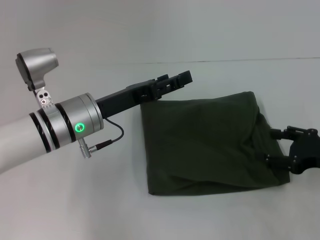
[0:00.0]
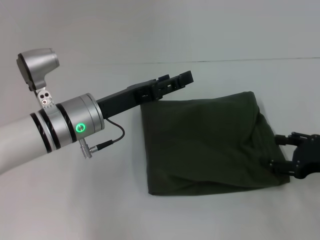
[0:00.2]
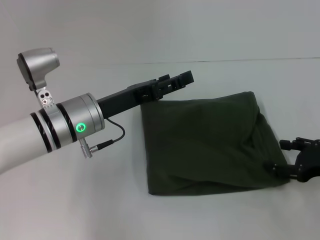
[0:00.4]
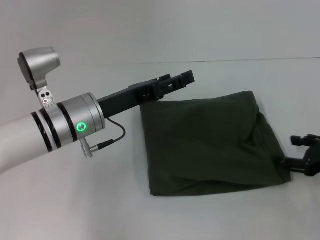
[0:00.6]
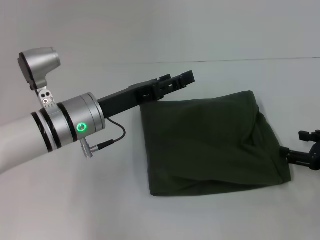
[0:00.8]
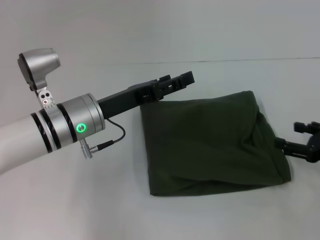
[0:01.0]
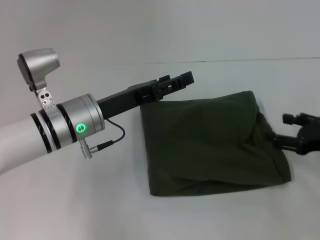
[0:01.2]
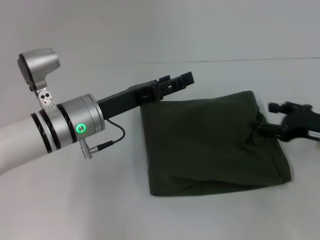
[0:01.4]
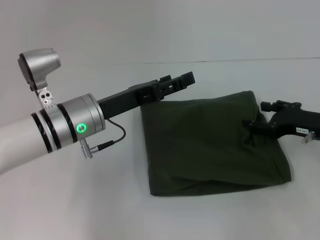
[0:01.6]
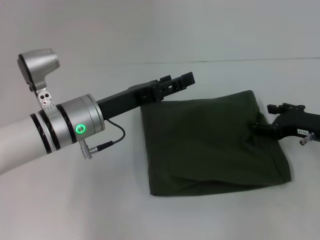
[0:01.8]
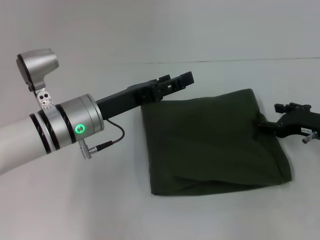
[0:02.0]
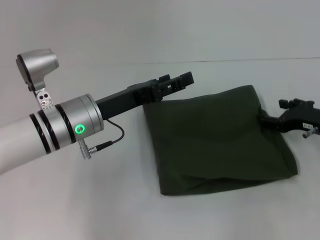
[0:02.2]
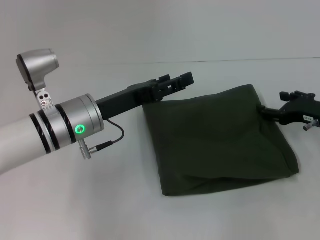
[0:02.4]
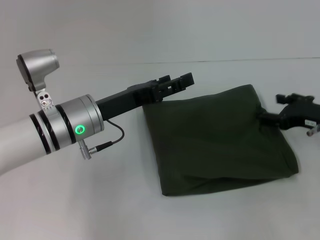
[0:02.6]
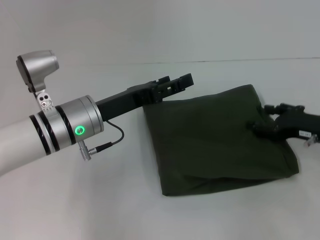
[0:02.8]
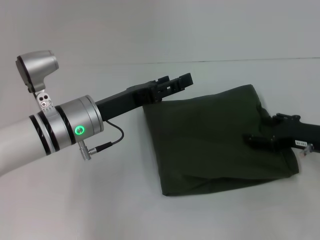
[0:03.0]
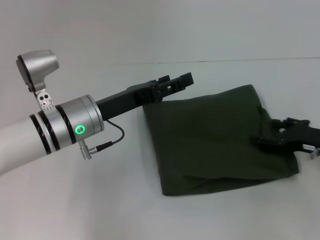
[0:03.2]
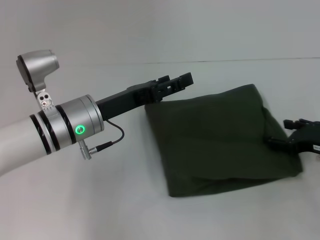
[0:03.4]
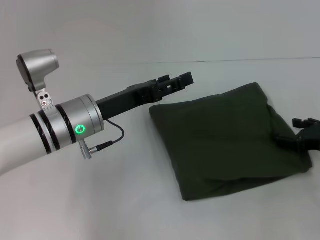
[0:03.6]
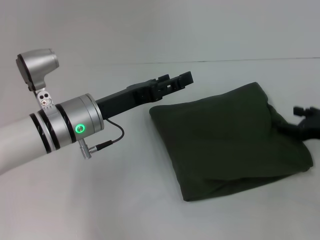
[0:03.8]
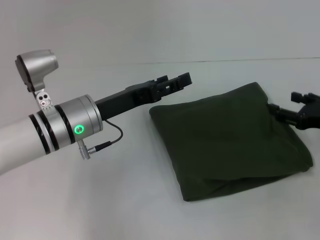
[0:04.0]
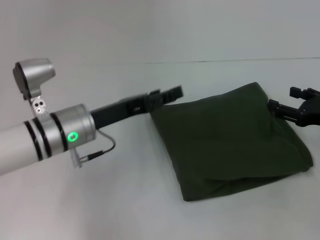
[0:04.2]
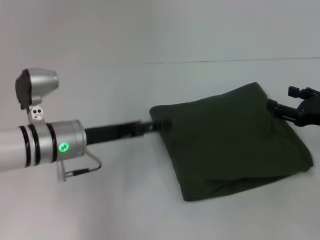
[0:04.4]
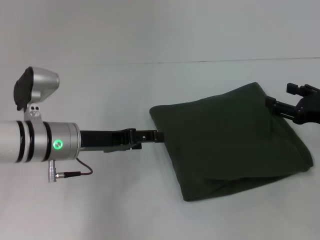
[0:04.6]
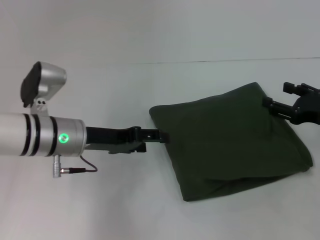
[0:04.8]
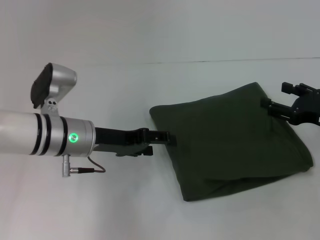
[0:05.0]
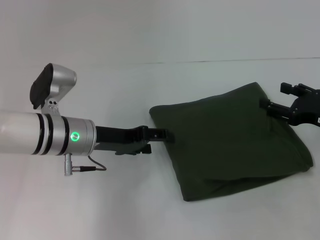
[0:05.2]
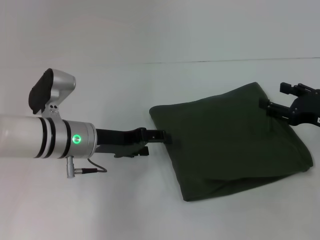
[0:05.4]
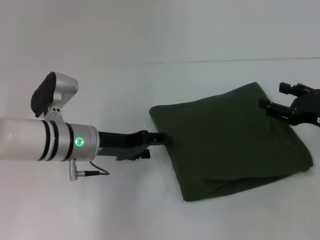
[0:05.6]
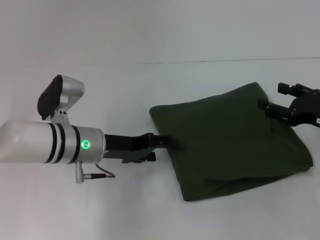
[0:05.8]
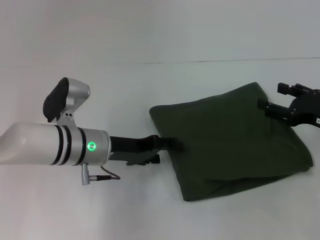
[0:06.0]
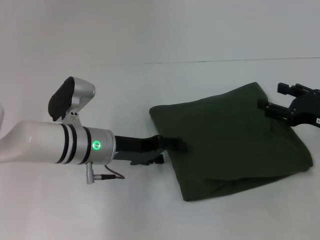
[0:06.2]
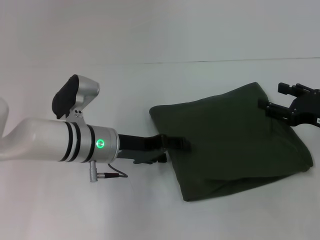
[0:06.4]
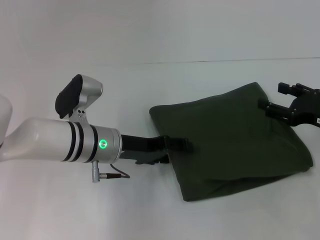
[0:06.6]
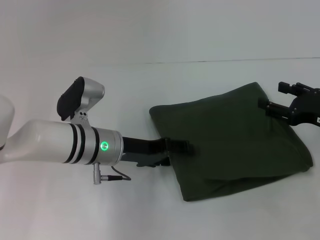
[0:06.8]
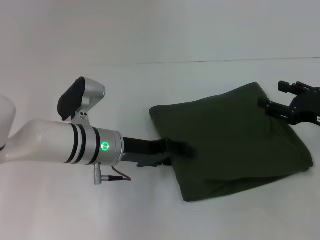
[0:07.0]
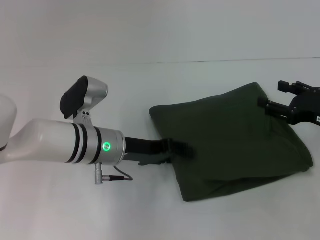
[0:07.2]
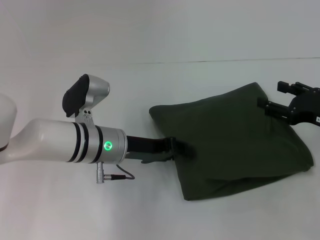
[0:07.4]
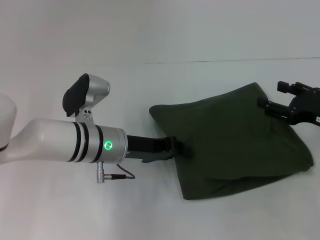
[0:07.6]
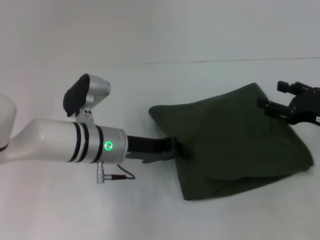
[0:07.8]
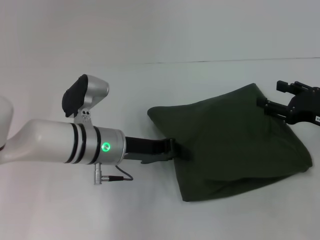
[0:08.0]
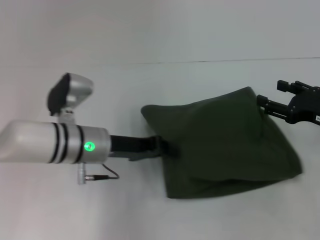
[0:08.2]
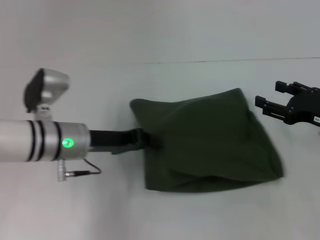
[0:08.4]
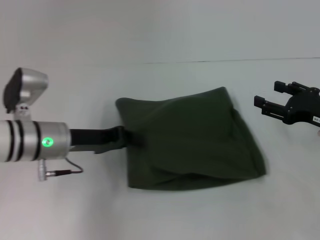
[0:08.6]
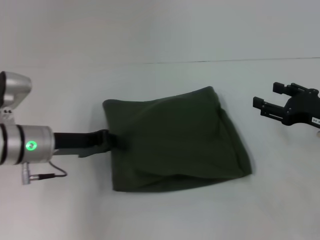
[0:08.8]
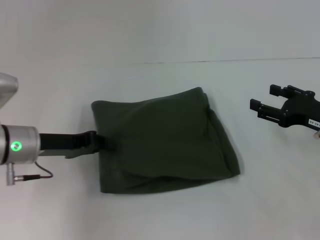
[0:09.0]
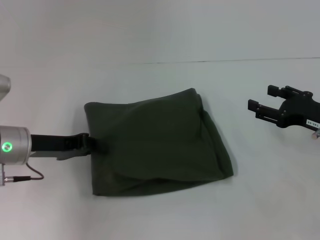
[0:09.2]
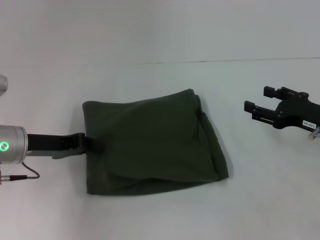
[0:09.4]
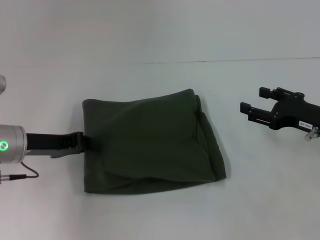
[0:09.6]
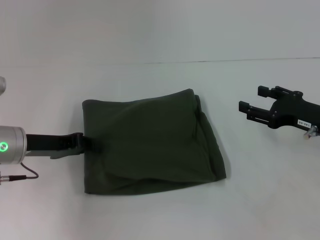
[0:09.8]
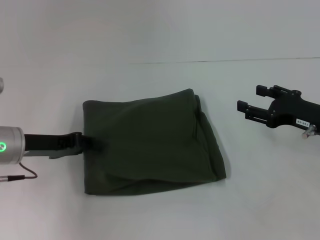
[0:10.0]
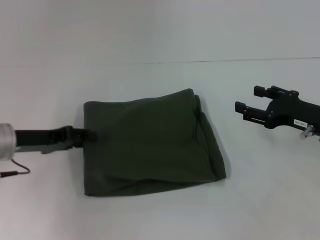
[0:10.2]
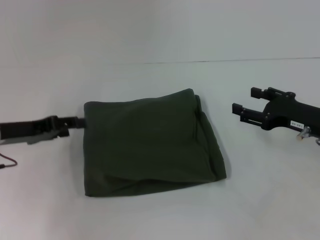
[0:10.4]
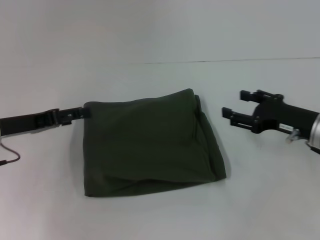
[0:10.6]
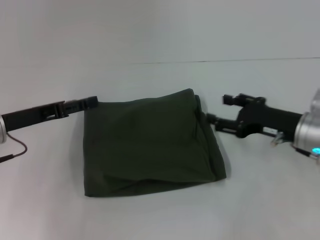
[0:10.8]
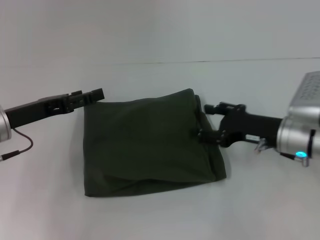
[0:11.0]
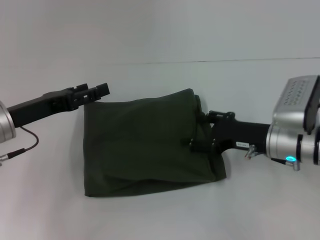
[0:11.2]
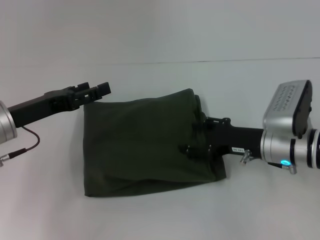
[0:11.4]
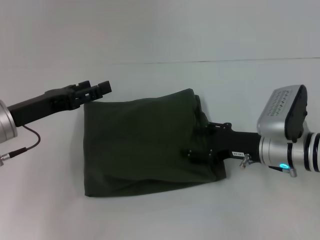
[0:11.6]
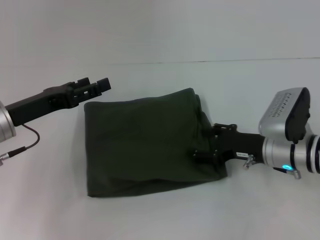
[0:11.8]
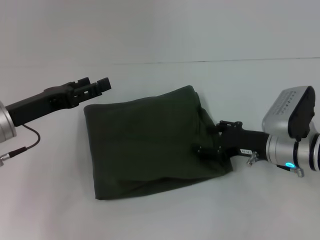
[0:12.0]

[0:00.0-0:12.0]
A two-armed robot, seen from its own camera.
0.0 to 1.6 s: The right gripper shifts about 5 cm forward.
1.6 to 3.0 s: The grippers move only a little.
6.0 to 7.6 s: The left gripper closes its fingers.
7.6 to 9.0 s: The left gripper heads to the left, covering some 10 cm.
9.0 to 10.4 s: The left gripper shifts about 5 cm to the left, and opens up.
10.4 to 12.0 s: The left gripper opens its fingers, while the right gripper is displaced to the left by some 5 cm.

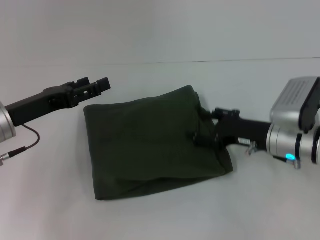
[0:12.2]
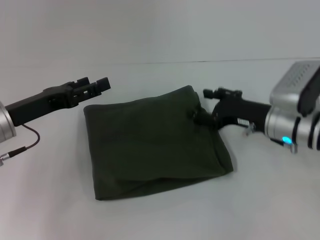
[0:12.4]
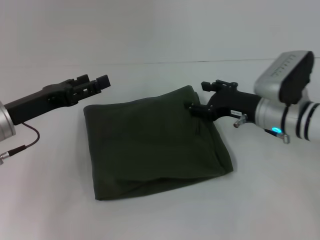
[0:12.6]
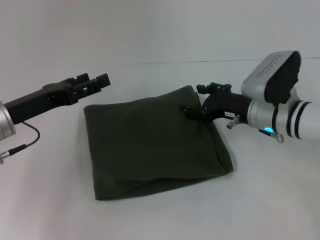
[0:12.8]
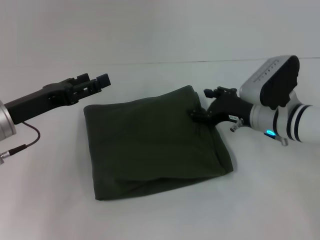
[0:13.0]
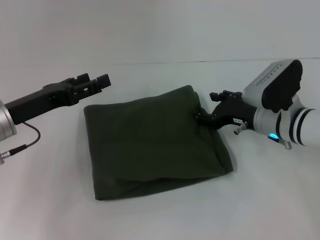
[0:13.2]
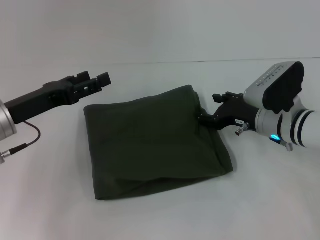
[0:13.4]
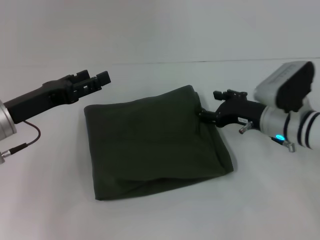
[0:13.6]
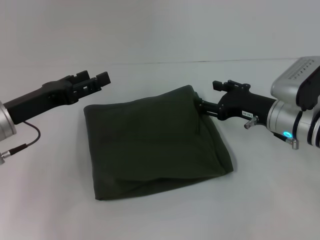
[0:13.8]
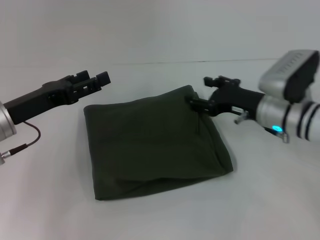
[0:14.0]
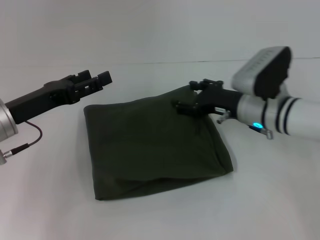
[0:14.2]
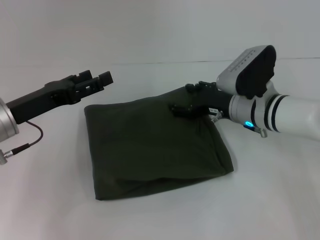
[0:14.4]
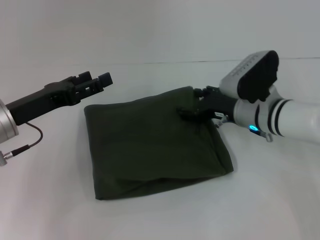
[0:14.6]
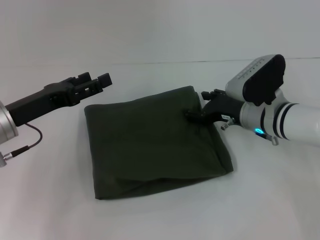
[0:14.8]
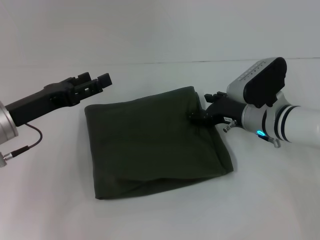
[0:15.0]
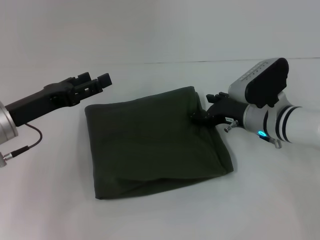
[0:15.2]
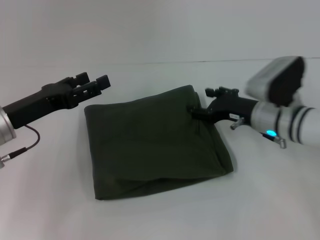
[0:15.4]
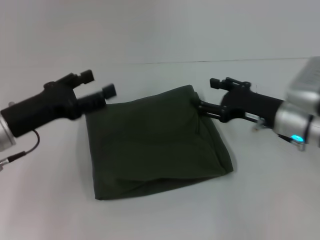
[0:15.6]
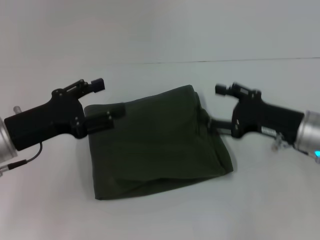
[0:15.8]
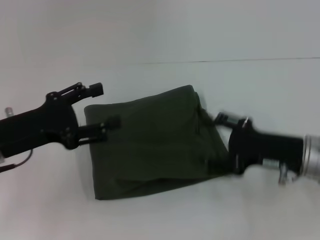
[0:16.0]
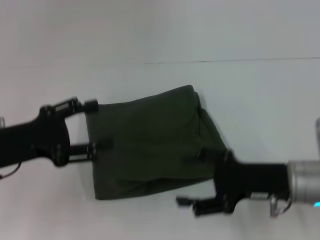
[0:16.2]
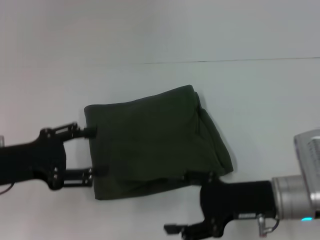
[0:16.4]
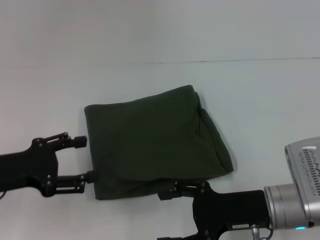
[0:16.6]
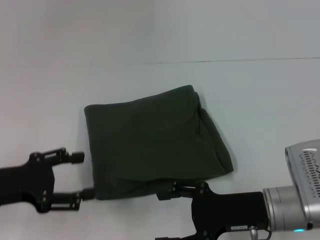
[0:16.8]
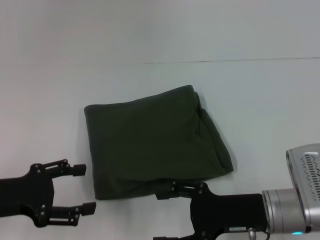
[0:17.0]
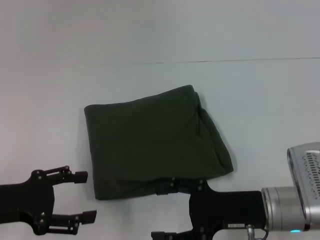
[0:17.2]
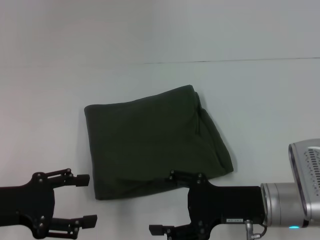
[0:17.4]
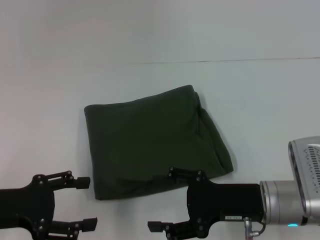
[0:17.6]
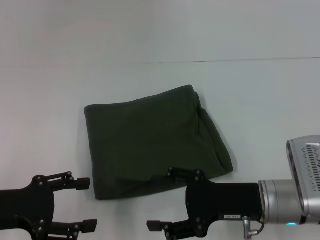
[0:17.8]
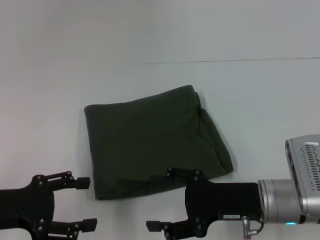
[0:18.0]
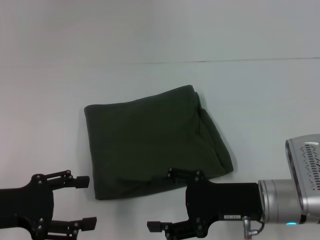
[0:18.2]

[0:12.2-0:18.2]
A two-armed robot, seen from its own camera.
12.2 to 13.8 s: The grippers move only a little.
15.2 to 16.6 s: The right gripper moves backward, roughly 15 cm; the left gripper is displaced backward by some 5 cm.
16.6 to 18.2 s: The grippers stay close to where they were, moving slightly.

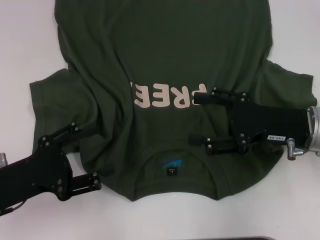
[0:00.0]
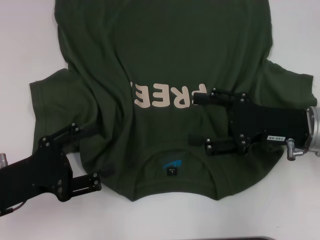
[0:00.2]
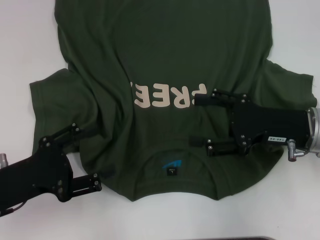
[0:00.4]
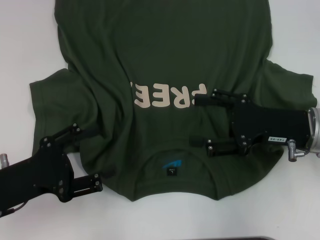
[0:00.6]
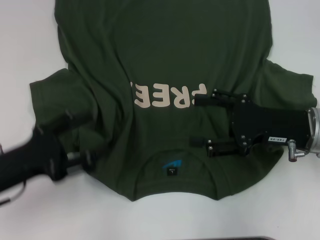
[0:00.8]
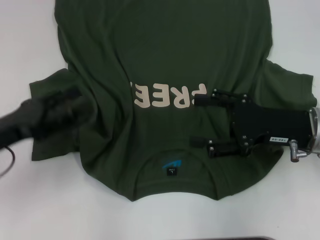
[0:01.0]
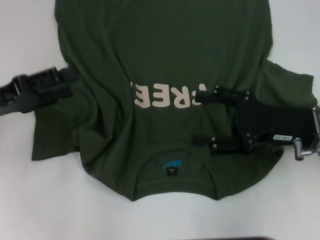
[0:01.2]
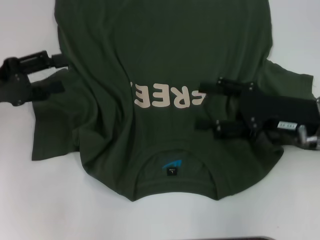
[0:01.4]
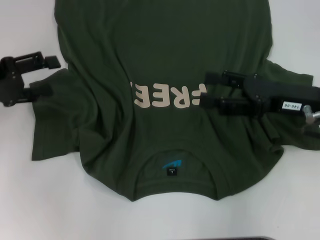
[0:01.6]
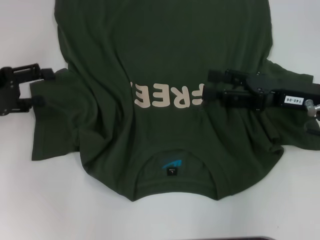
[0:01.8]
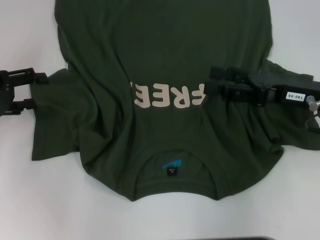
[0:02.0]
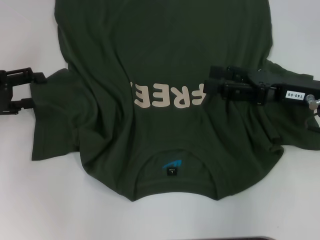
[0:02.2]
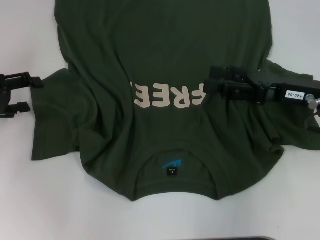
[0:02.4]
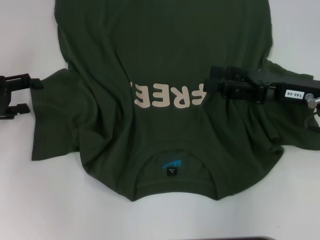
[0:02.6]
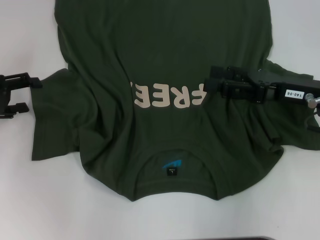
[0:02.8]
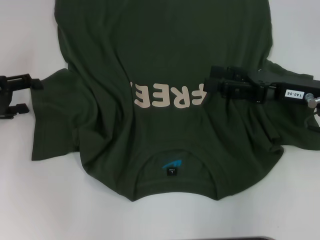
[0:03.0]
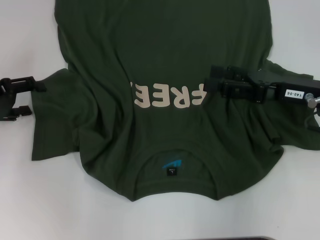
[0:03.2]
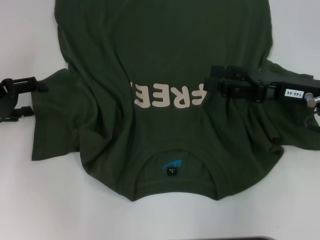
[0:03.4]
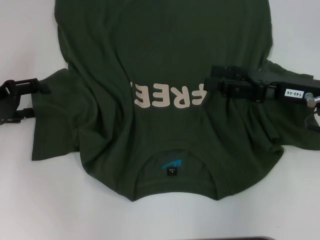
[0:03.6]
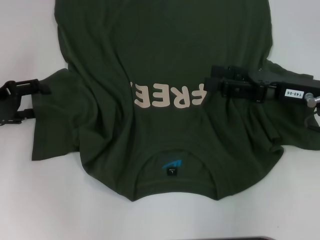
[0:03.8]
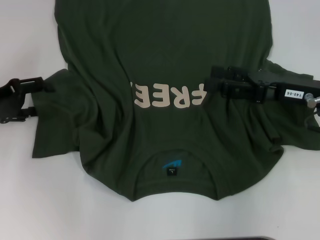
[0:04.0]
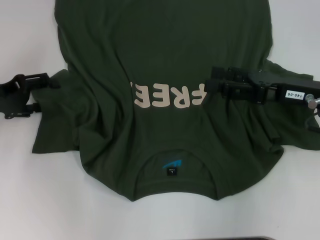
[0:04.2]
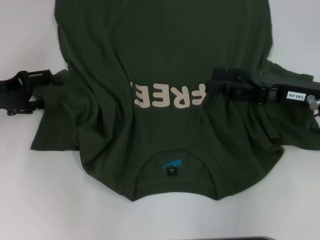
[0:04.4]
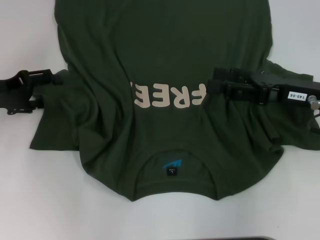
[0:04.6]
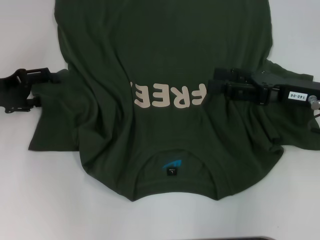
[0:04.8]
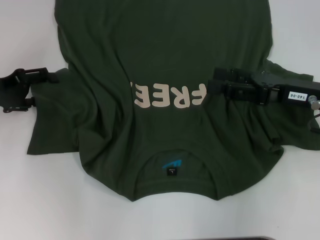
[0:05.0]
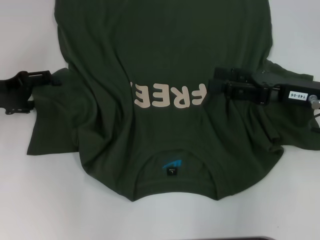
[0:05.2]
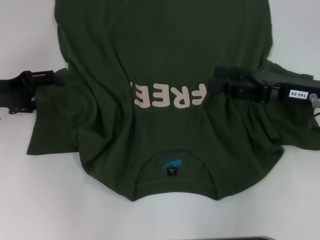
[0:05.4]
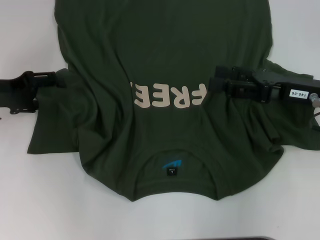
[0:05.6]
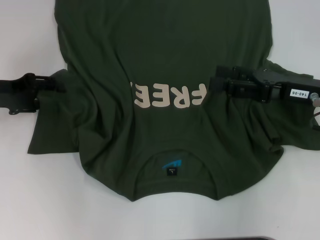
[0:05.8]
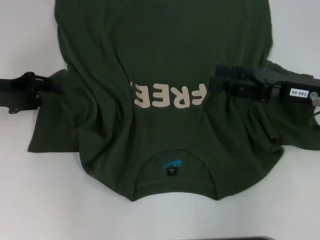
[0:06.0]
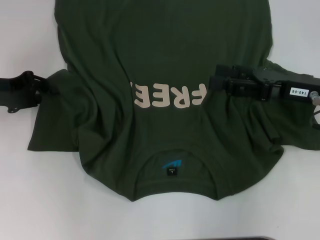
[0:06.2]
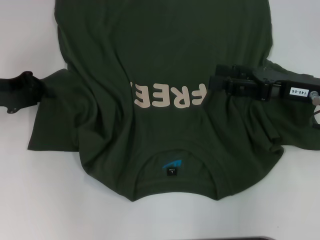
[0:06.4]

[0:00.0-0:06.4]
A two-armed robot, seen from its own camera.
0.0 to 1.6 s: The left gripper heads forward, upward and to the left, covering about 15 cm.
3.2 to 4.8 s: The grippers stay close to where they were, moving slightly.
4.8 to 6.4 s: The left gripper closes up.
